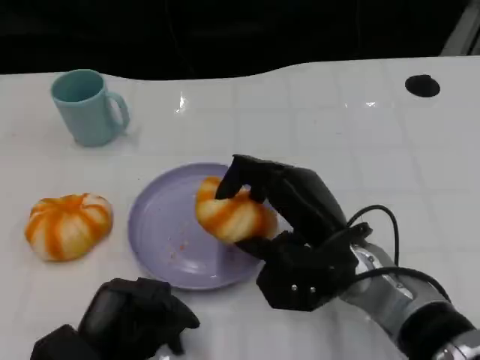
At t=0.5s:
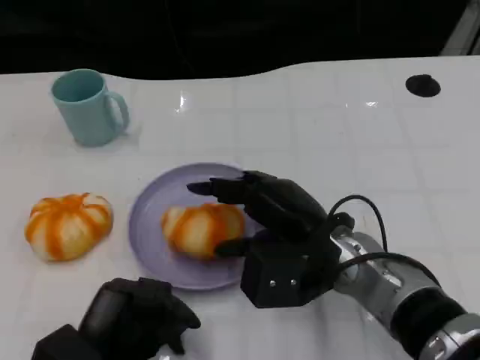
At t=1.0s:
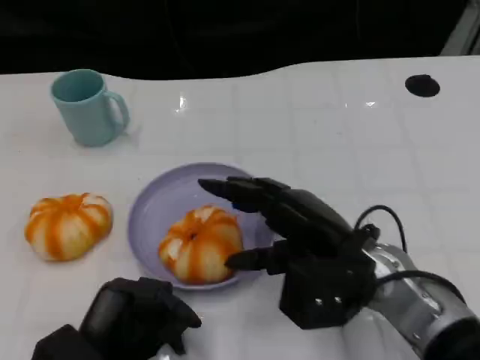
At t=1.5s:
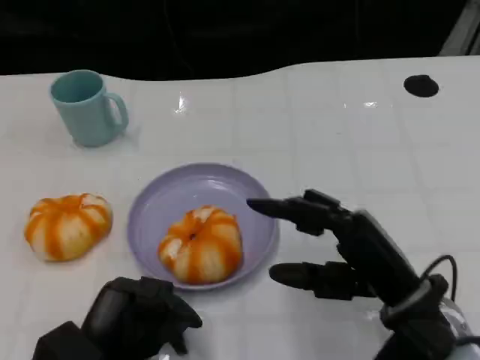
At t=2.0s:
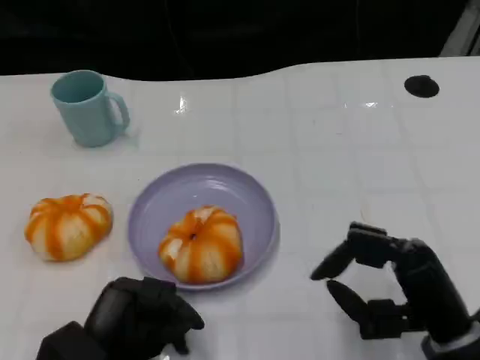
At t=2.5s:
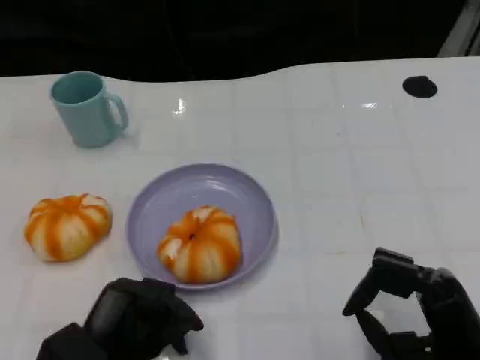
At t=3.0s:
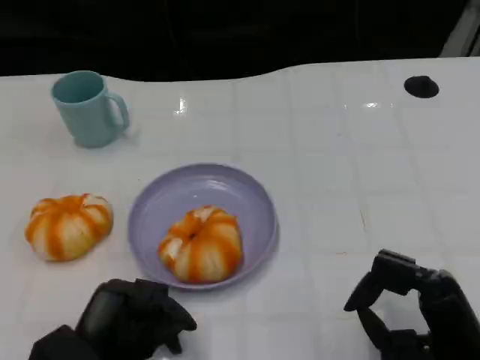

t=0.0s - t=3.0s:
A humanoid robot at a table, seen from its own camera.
Task of the whole recording: Grasp the bread from the table and place it into the plate.
t=0.0s - t=1.5s: The right hand goes about 5 cm to the right.
t=1.5s - t=3.0s: The right hand shifts about 5 cm backward.

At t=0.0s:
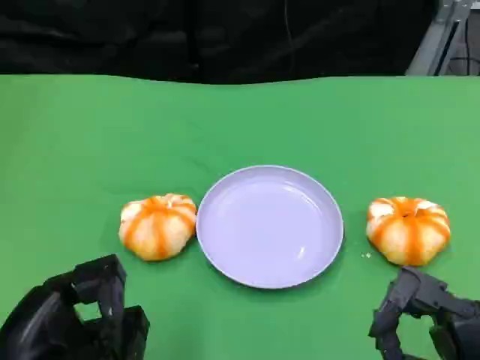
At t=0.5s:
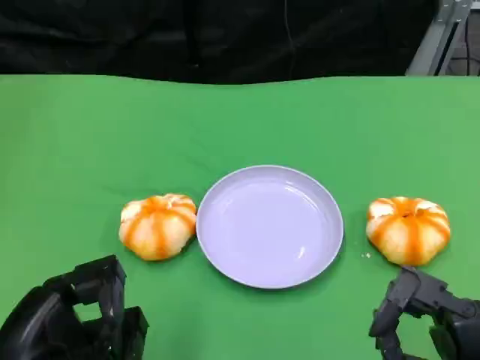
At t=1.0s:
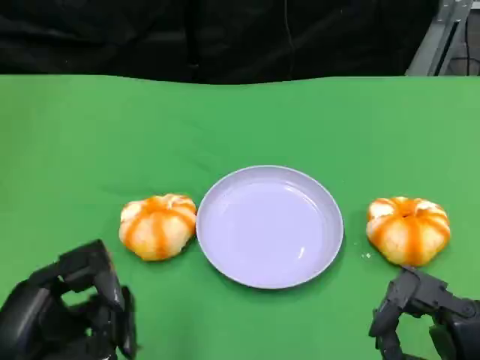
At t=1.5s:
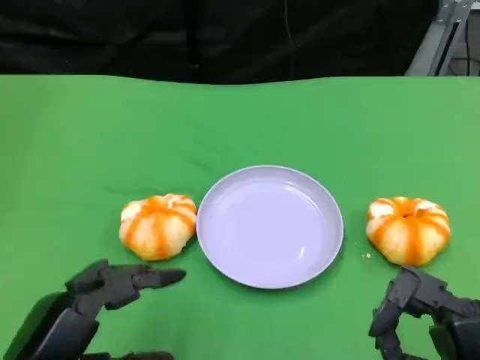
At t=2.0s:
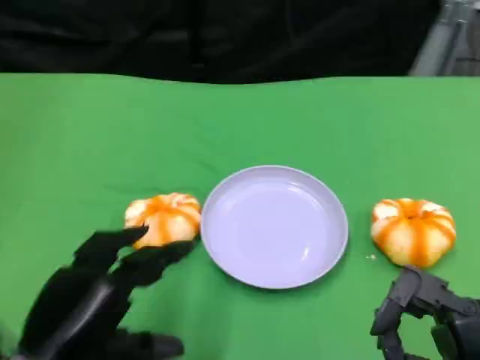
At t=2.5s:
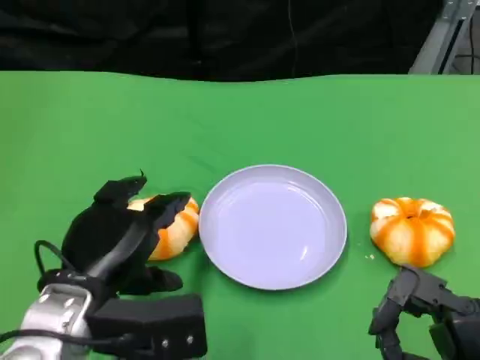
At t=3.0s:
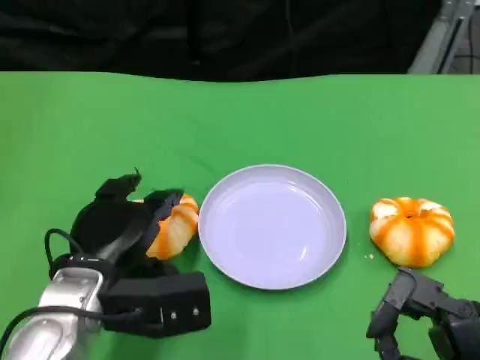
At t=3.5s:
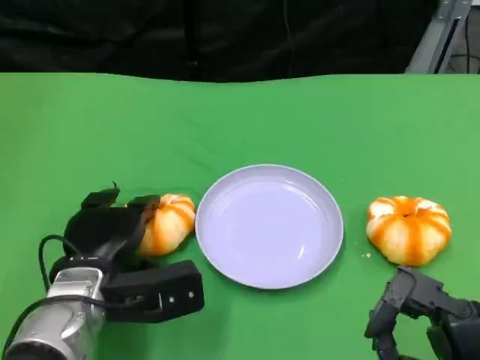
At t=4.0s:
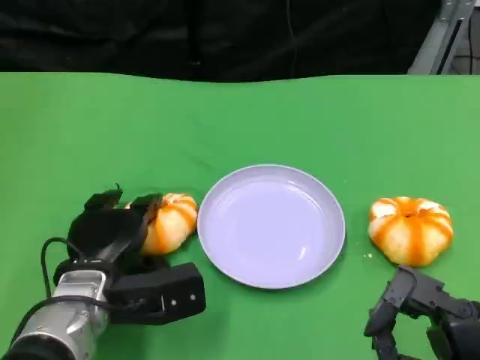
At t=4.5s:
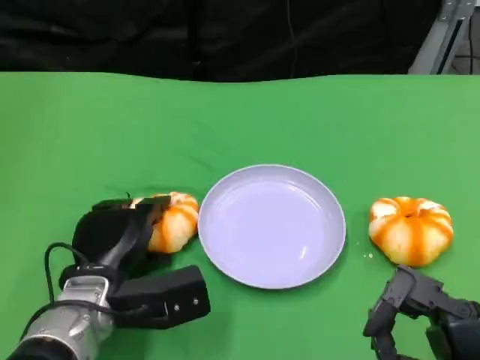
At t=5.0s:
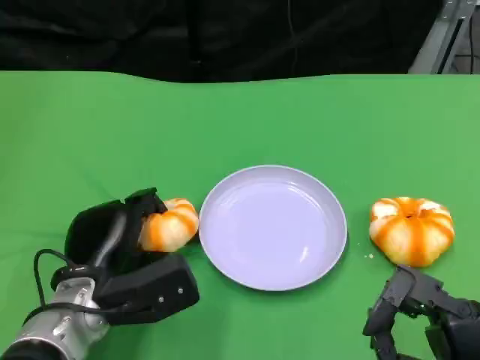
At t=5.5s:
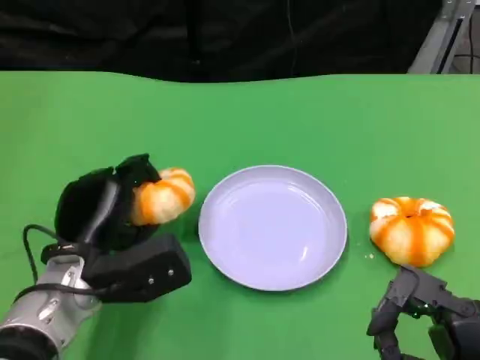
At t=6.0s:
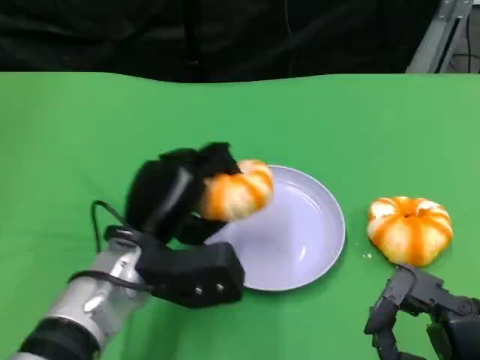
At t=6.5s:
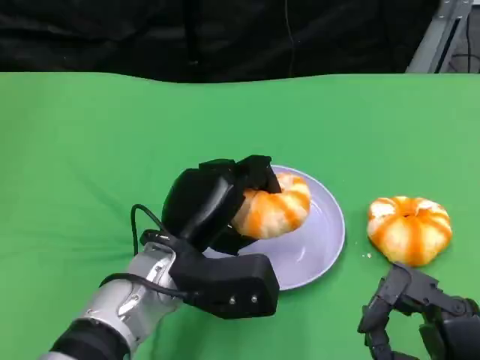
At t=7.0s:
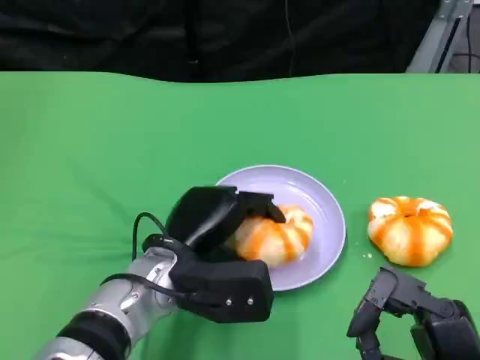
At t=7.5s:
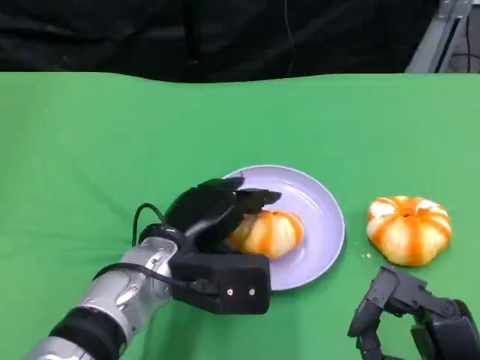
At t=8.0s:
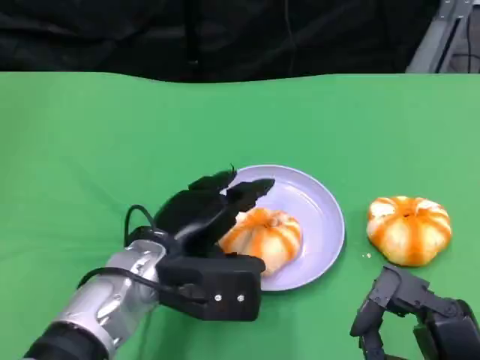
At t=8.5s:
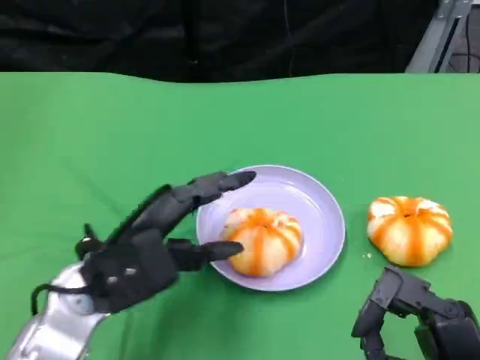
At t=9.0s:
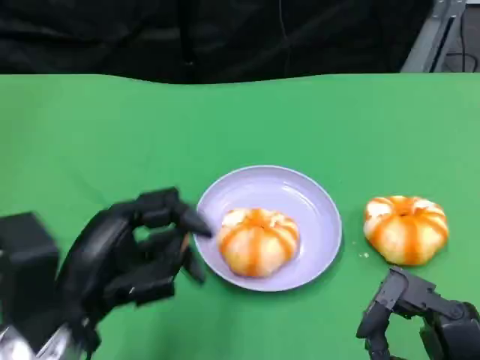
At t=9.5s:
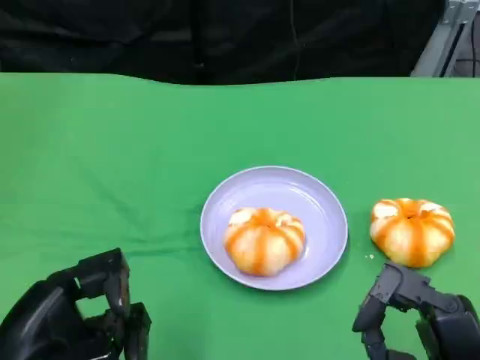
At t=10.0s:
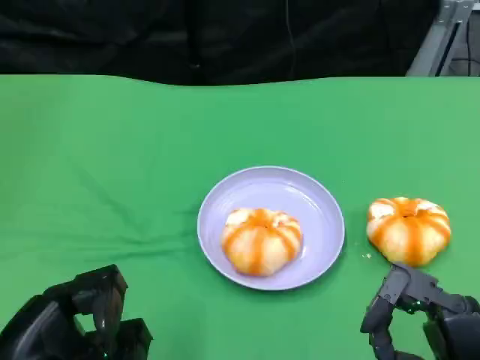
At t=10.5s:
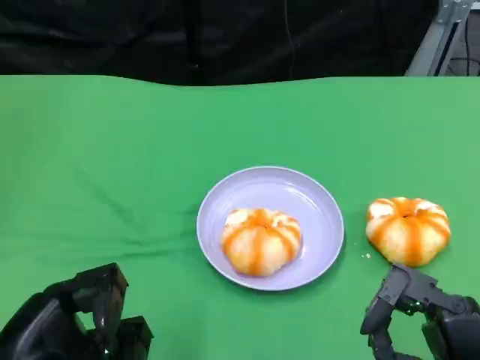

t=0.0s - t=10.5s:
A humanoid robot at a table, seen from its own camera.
Task of the whole recording: Grasp the bread from the table and place it into the plate.
t=0.0s - t=2.0s: The left hand moves approximately 5 cm.
t=2.0s - t=4.0s: The left hand heads forward and downward, covering approximately 10 cm.
t=4.0s - t=6.5s: The left hand moves to the right, roughly 10 cm.
t=6.5s - t=8.5s: The left hand moves to the left, some 10 cm.
t=8.5s - t=10.5s: The left hand is displaced backward and to the left by some 15 cm.

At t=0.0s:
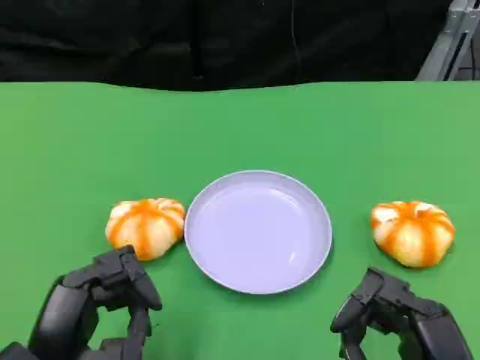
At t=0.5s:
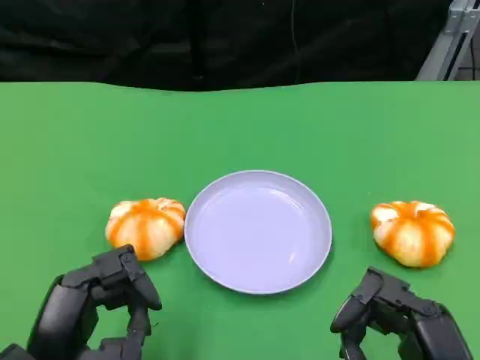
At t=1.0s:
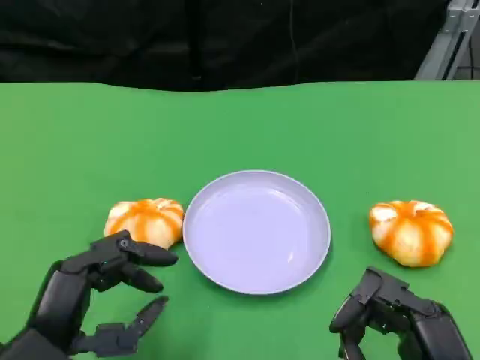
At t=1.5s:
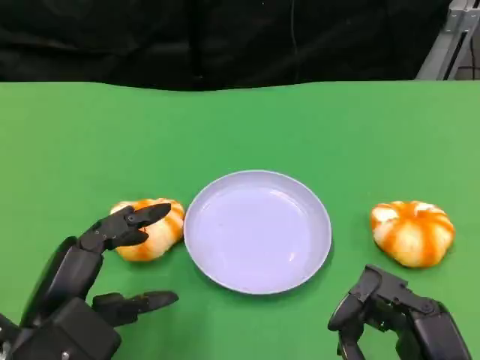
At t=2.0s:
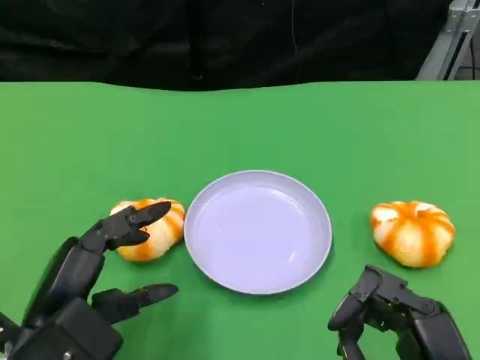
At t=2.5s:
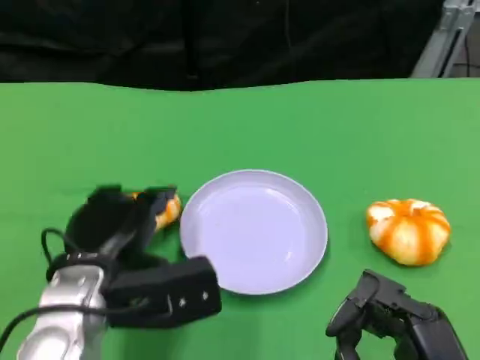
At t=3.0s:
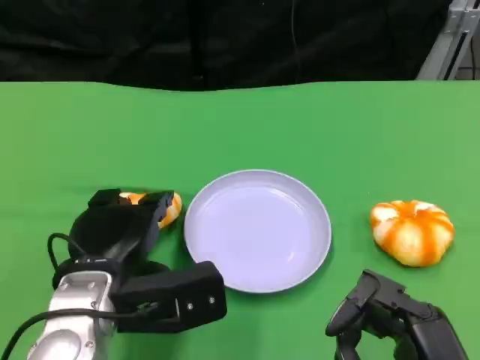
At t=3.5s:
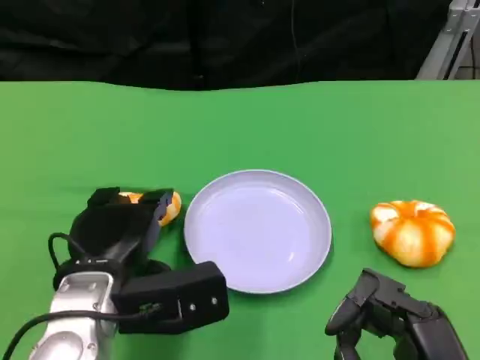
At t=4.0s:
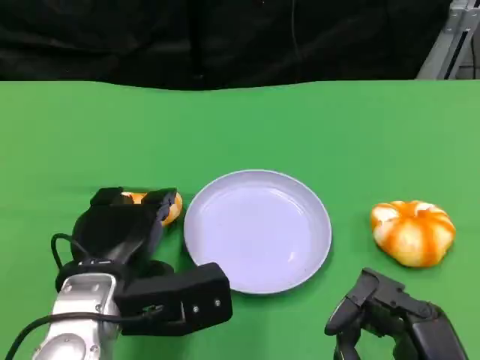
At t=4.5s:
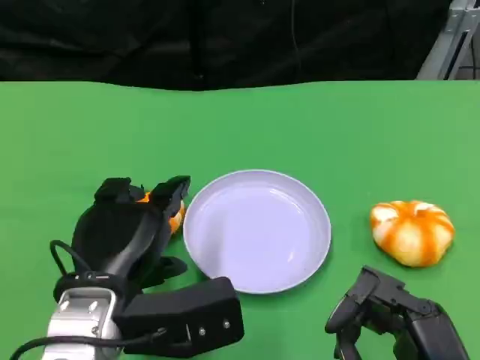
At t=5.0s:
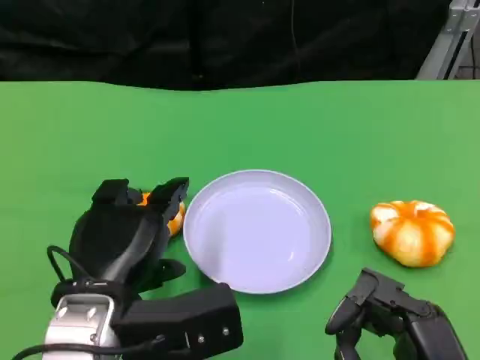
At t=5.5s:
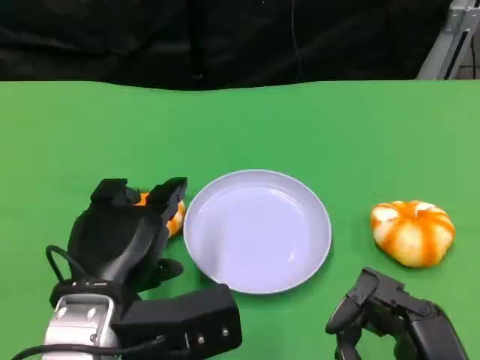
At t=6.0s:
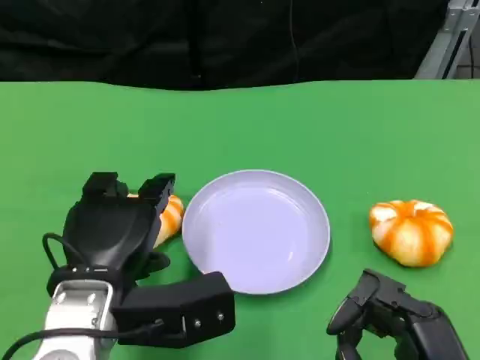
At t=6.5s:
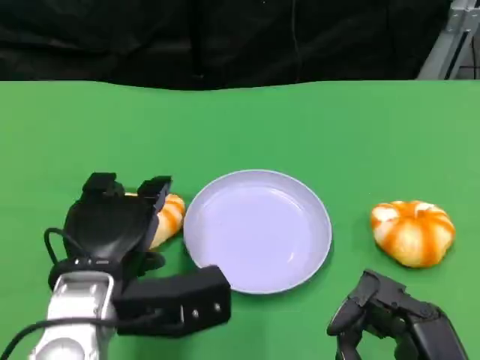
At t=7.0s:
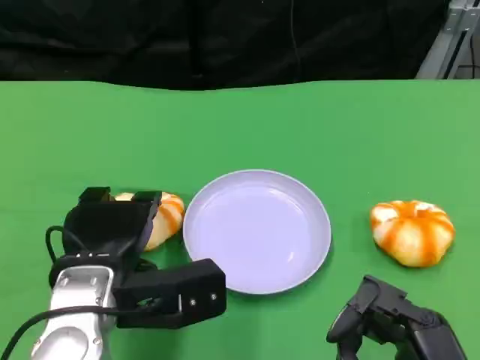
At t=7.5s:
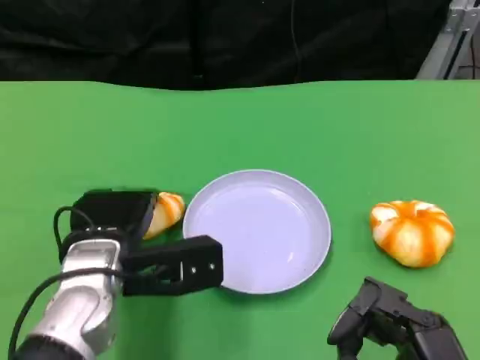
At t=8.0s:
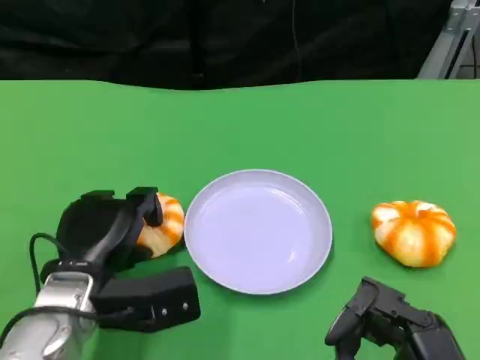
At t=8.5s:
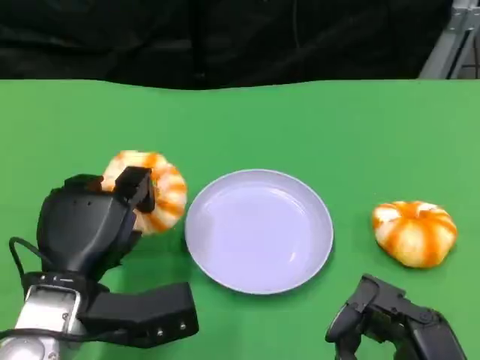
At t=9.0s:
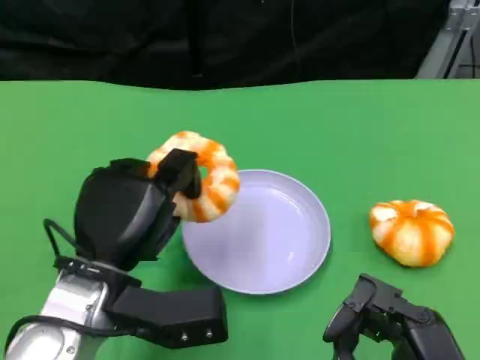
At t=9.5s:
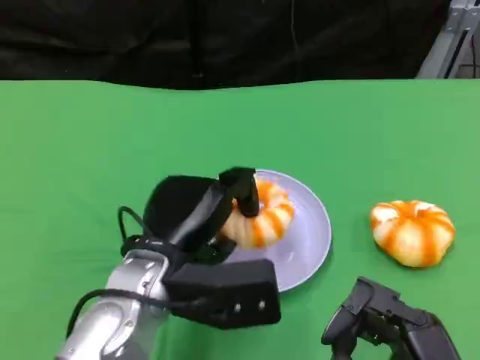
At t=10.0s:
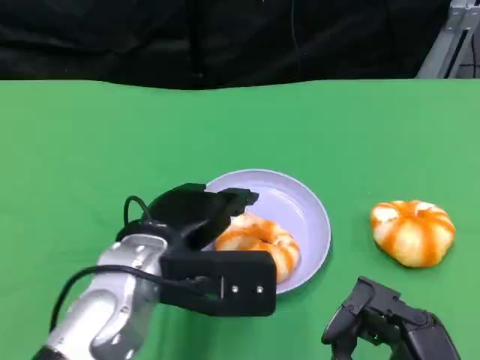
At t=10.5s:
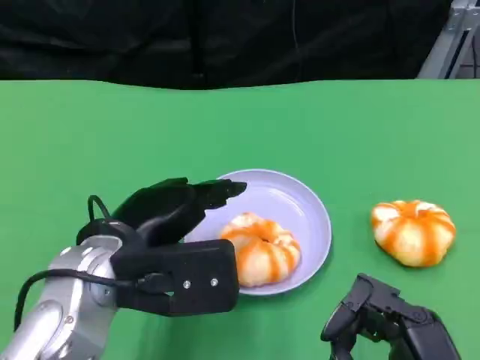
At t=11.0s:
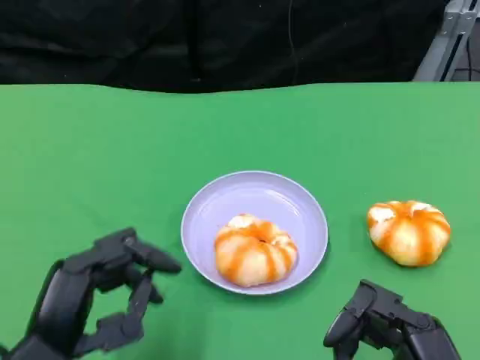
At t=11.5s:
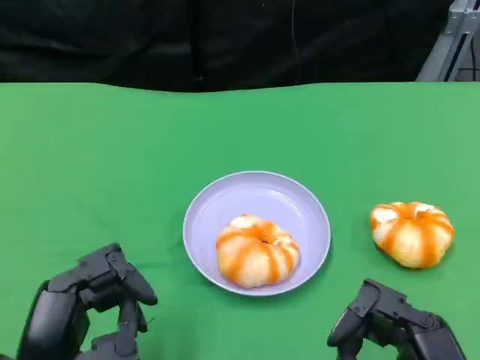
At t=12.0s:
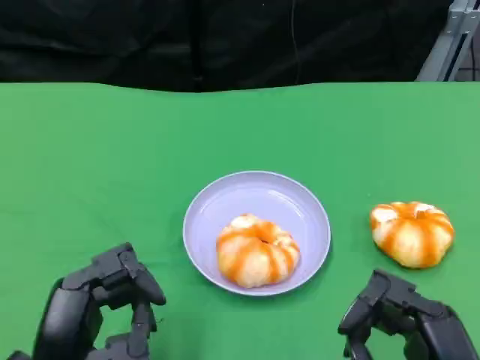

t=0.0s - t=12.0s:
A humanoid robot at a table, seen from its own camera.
Task of the whole recording: Grasp the bread from the table and place it into the plate.
t=2.0s - t=4.0s: The left hand moves forward and to the right, approximately 10 cm.
t=4.0s - t=6.0s: The hands move only a little.
t=6.0s - t=8.0s: The left hand heads downward, covering some 5 cm.
t=8.0s - t=10.0s: The left hand is displaced upward and to the right by approximately 10 cm.
t=10.0s - t=12.0s: The left hand moves backward, to the left and downward, roughly 15 cm.
